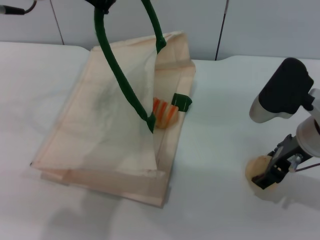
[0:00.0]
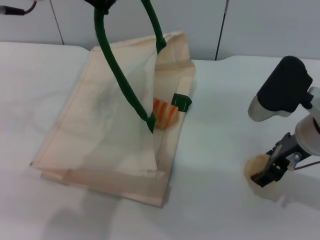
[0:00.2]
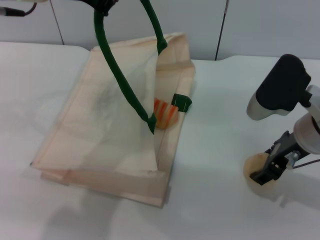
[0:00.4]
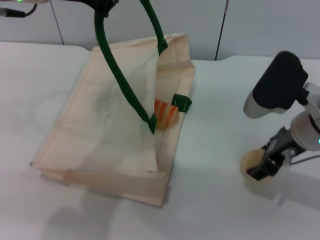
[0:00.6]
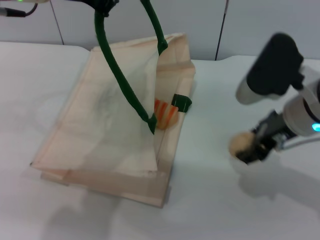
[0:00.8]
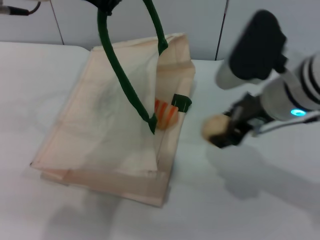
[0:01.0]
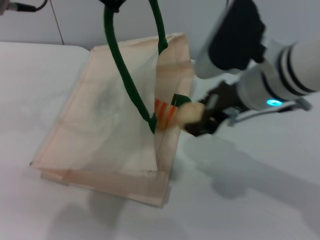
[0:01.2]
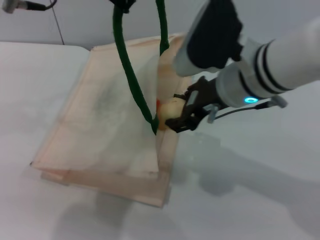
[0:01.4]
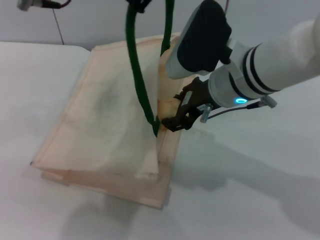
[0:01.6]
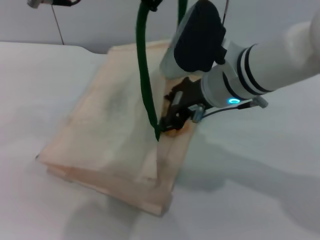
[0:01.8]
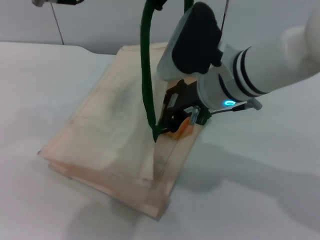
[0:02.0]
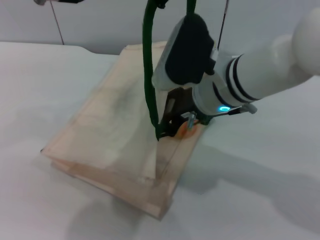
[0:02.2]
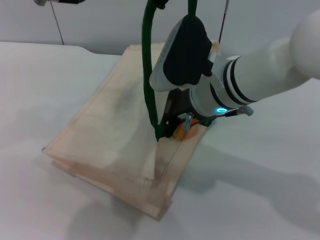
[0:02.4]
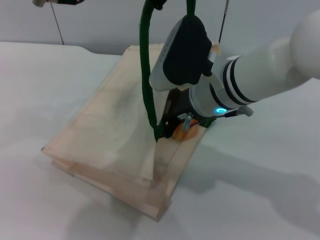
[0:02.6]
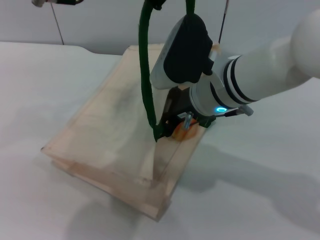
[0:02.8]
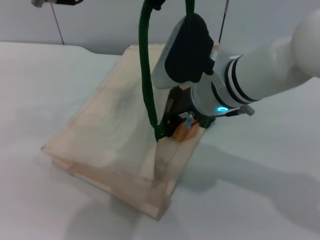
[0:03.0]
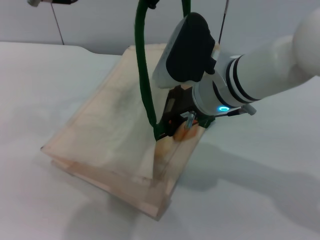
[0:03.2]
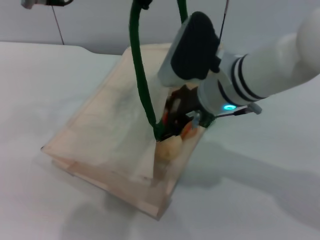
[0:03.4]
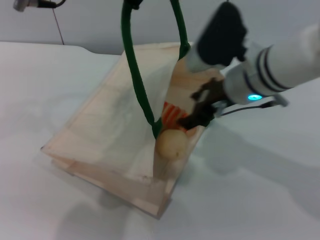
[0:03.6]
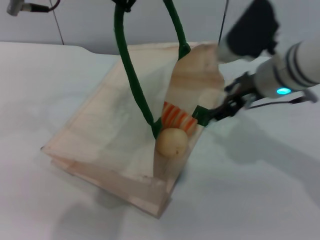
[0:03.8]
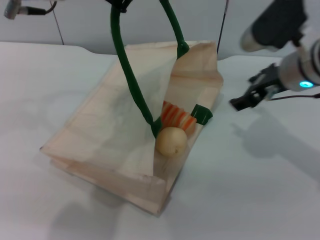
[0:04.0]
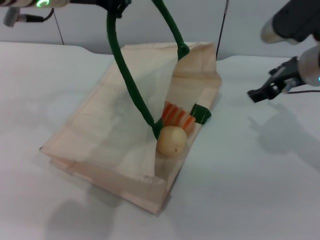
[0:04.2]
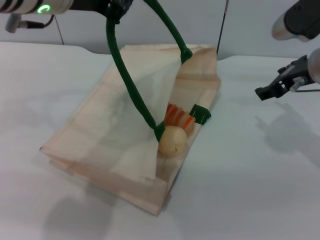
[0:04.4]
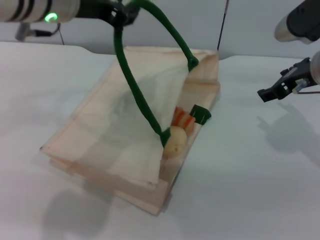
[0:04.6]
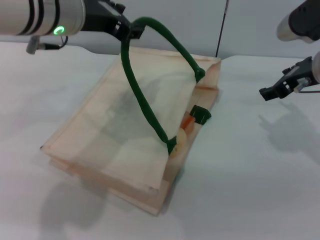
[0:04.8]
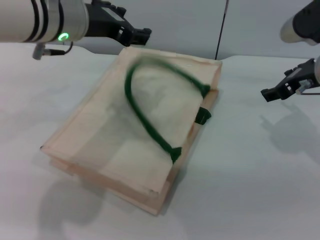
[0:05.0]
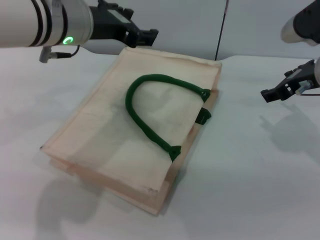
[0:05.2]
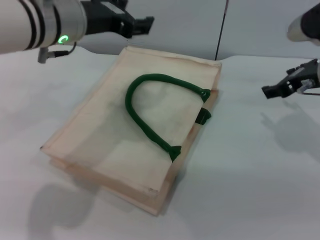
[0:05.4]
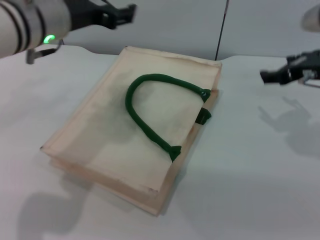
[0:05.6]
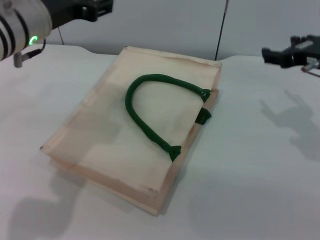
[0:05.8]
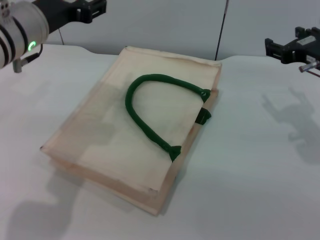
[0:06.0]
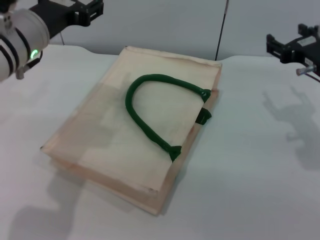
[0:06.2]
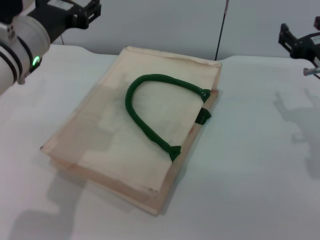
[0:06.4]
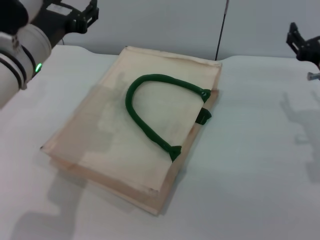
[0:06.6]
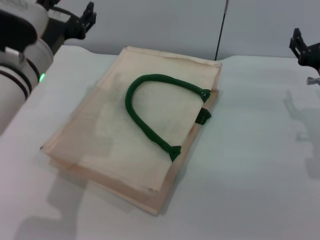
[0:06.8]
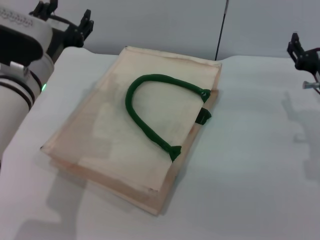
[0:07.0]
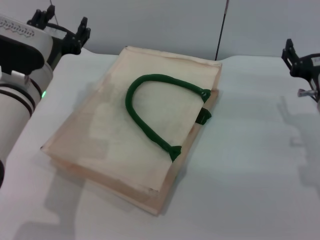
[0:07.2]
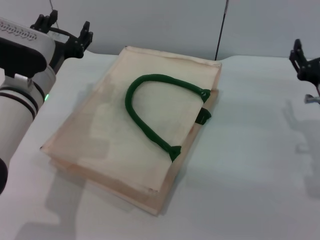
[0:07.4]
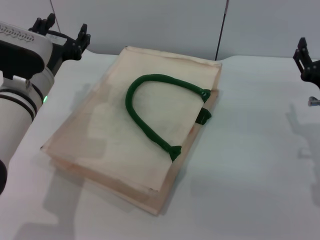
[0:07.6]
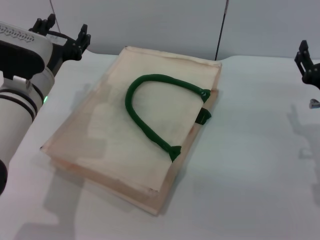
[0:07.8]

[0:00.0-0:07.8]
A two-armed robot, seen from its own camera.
Task of the whole recording: pick up the bread and egg yolk pastry from the table and place it in the white handbag.
Step, 0:01.0 to 0:03.8: Place the egg yolk pastry into the woven bag with the right gripper.
Step, 0:04.0 to 0:06.2: Lower the woven bag with the left gripper to close it.
0:00.0 to 0:01.6: The right gripper is displaced to the left by some 10 cm.
0:01.6 to 0:03.2: The grippers move only a little.
0:03.2 to 0:04.6: The left gripper travels downward by roughly 5 cm; the right gripper goes roughly 15 cm to the right.
0:04.6 to 0:06.2: The left gripper shifts about 10 cm downward, and opens up. The right gripper ends up about 5 cm from where it was.
0:06.2 to 0:07.8: The right gripper moves downward and backward, approximately 10 cm. Meanwhile the left gripper is displaced downward by about 5 cm.

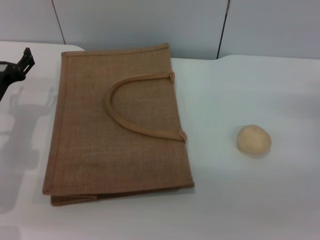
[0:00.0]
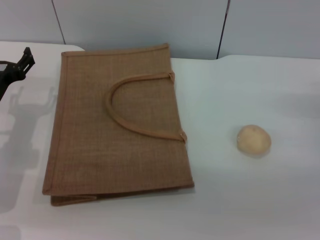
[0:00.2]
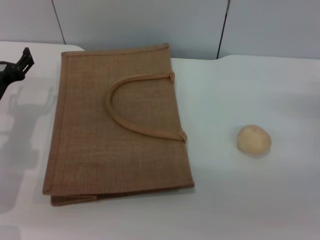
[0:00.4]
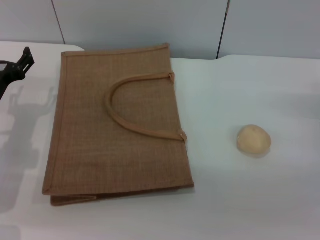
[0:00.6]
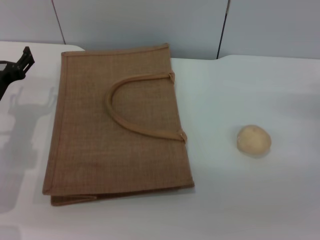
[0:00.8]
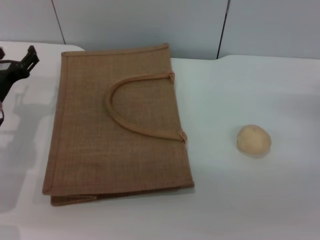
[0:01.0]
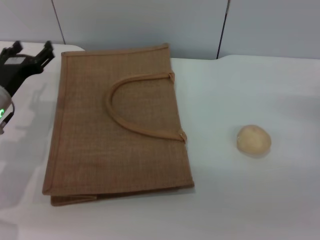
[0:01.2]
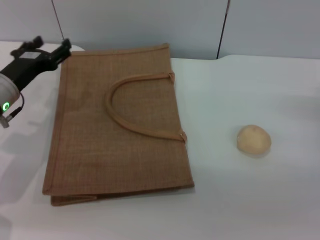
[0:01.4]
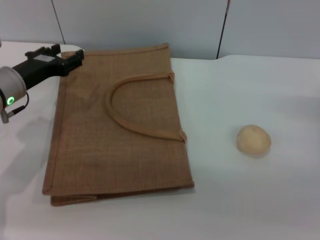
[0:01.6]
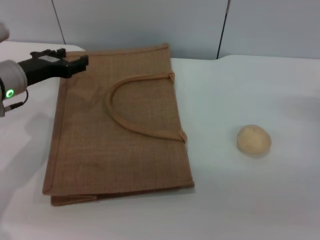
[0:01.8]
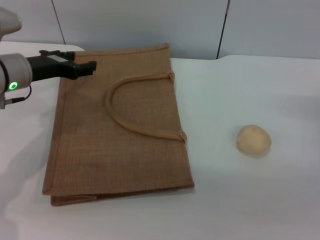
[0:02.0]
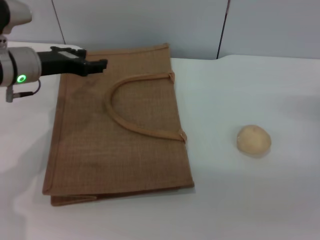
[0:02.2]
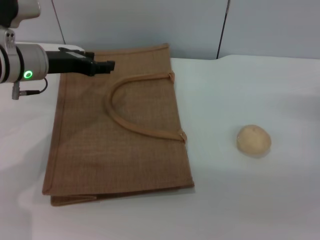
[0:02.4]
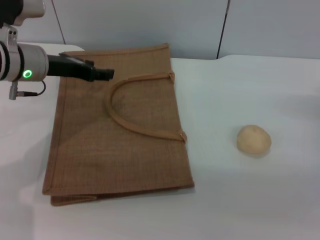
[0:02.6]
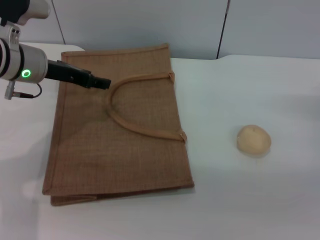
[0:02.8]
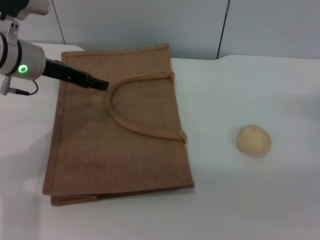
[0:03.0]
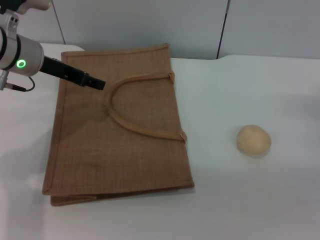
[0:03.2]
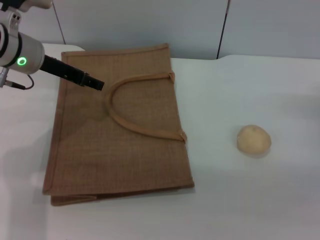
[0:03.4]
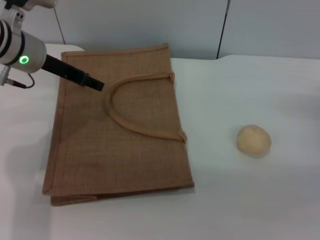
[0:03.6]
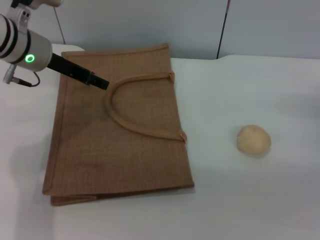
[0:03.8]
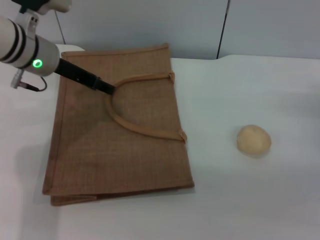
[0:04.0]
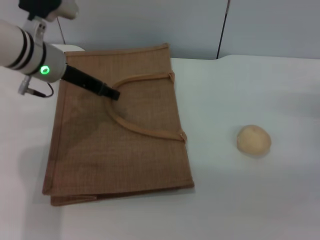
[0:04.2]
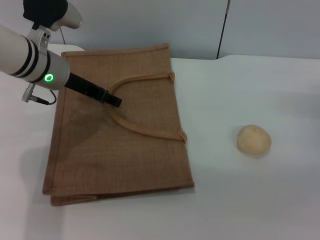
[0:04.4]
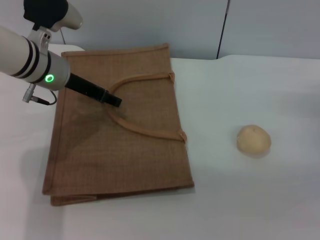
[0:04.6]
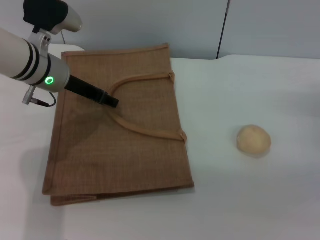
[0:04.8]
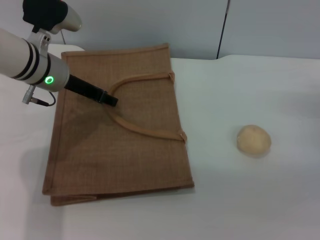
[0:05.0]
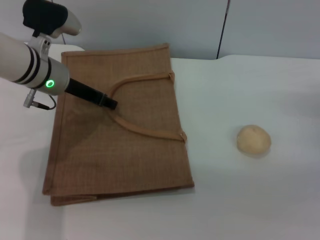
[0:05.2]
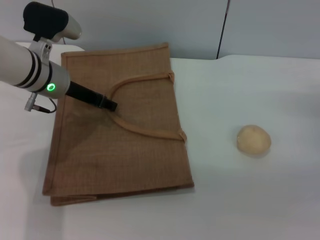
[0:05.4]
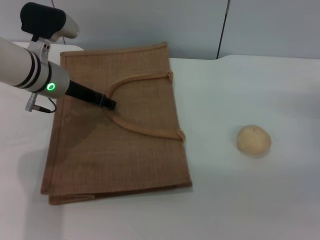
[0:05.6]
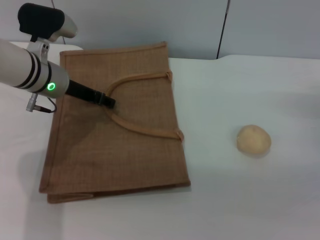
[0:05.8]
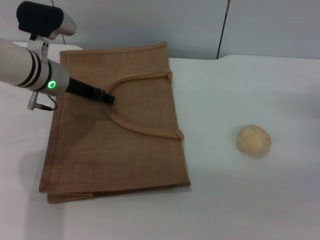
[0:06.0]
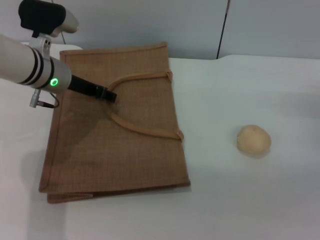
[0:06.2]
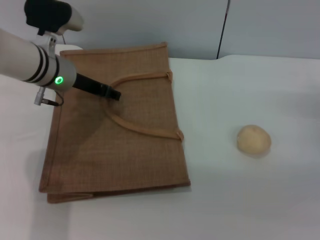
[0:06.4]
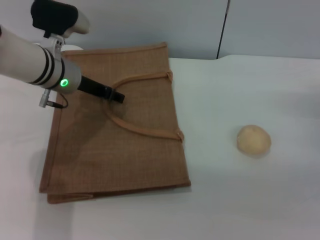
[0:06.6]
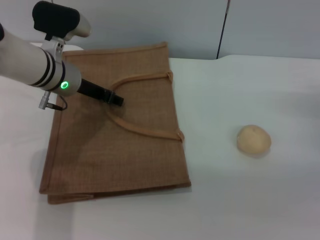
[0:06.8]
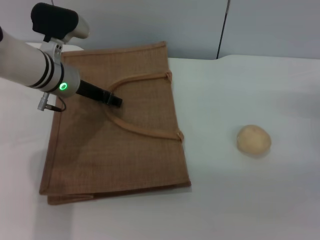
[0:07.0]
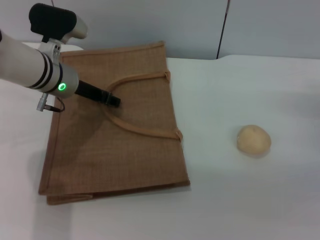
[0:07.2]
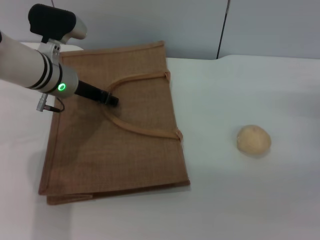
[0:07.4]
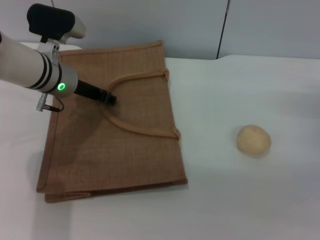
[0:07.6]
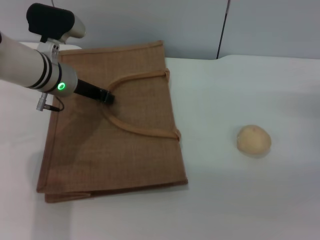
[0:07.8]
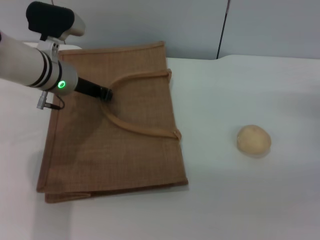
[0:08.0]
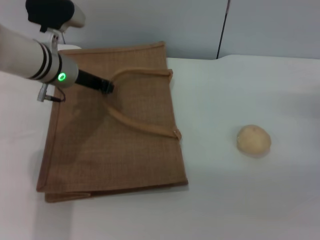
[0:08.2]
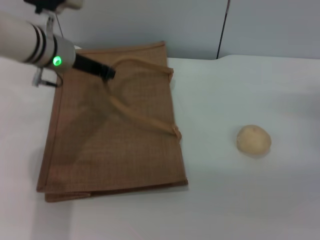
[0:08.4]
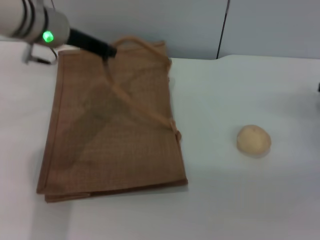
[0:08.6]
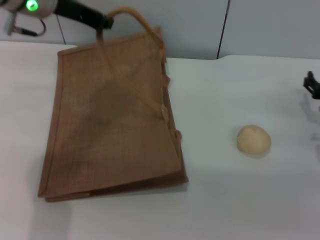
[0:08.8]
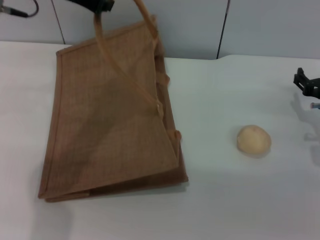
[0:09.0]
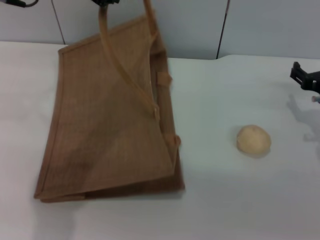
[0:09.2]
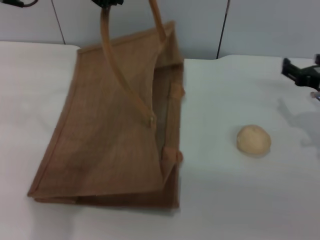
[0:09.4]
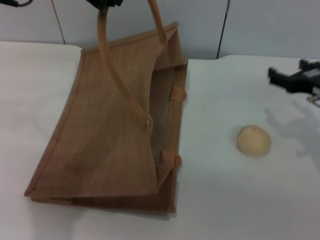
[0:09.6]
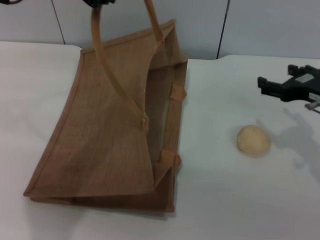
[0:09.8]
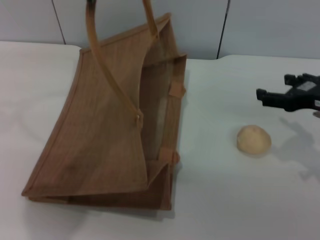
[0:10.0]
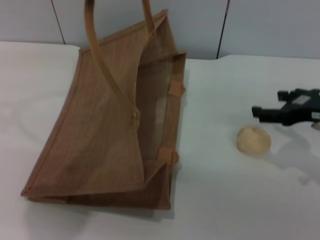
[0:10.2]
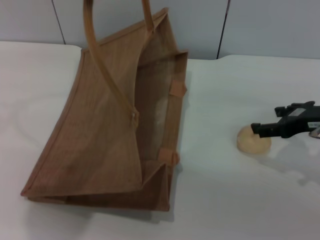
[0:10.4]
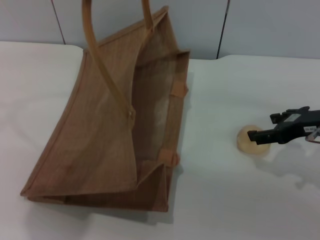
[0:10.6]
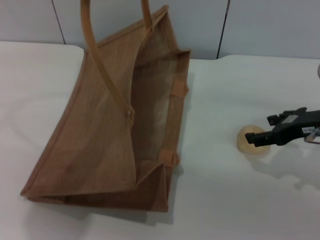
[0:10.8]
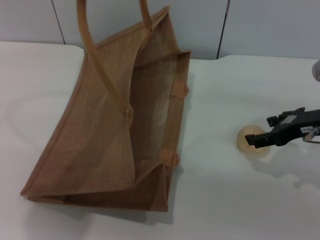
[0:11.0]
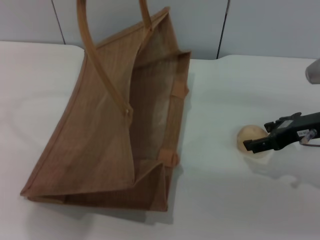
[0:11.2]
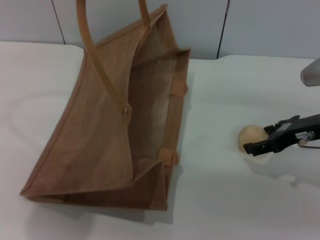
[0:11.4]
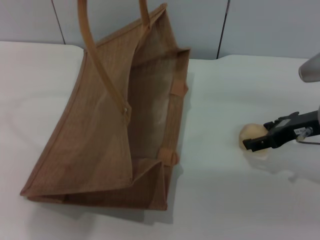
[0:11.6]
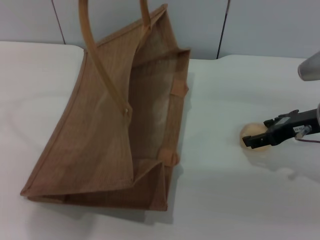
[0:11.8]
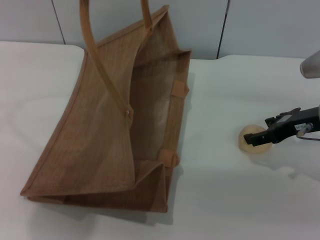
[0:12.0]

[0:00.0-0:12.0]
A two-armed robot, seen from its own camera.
Task of the whole recording: pick up the egg yolk pastry from the table and place it in the brown handbag.
Step, 0:00.0 to 0:08.6: Lift the woven bag with the left gripper to open it.
0:00.0 to 0:01.6: The left gripper moves approximately 5 cm.
0:01.6 to 0:03.0: The left gripper heads upward, covering roughly 5 cm.
0:03.0 to 0:06.0: The grippers stay close to where they were, moving slightly.
0:06.0 to 0:07.6: The grippers stay close to where they were, moving slightly.
0:07.6 to 0:09.0: The right gripper is displaced to the left by some 5 cm. Meanwhile the left gripper moves upward, some 20 cm, and closes.
0:09.0 to 0:10.4: The left gripper shifts some 10 cm backward and upward, while the right gripper is displaced upward by roughly 10 cm.
0:10.4 to 0:12.0: There are only small adjustments of the grippers.

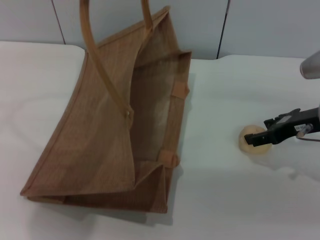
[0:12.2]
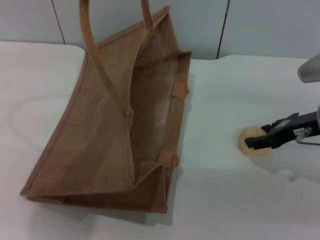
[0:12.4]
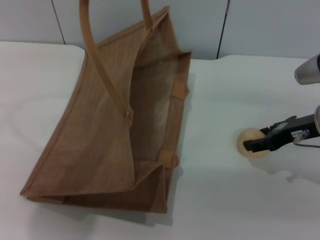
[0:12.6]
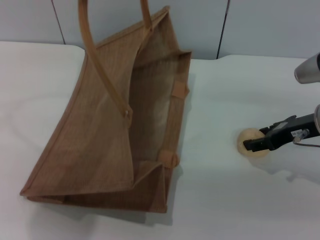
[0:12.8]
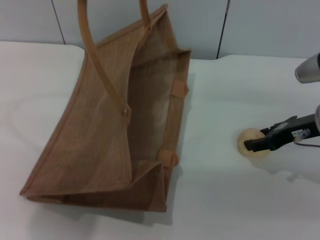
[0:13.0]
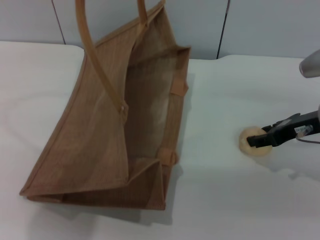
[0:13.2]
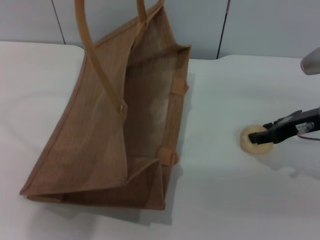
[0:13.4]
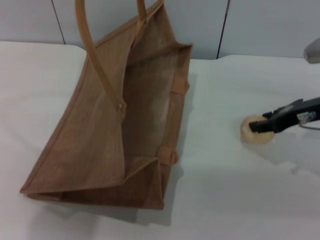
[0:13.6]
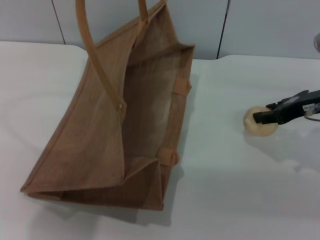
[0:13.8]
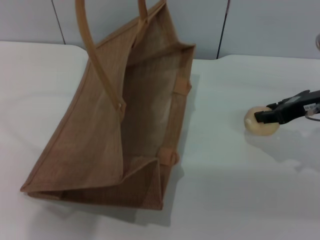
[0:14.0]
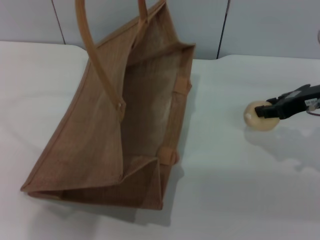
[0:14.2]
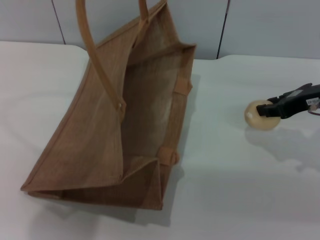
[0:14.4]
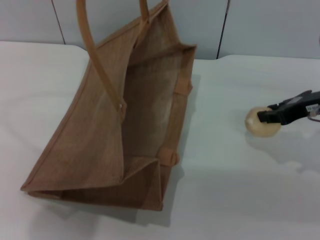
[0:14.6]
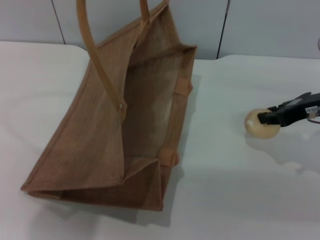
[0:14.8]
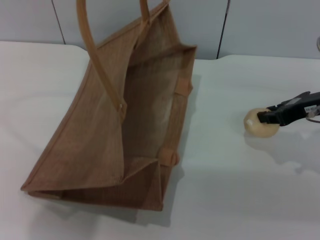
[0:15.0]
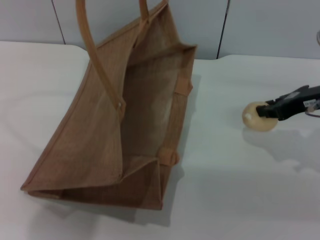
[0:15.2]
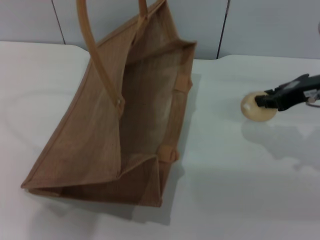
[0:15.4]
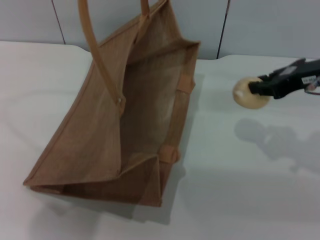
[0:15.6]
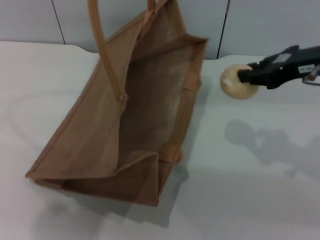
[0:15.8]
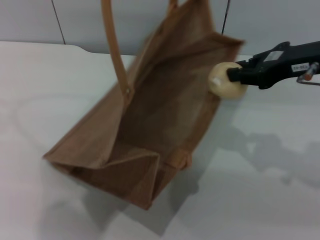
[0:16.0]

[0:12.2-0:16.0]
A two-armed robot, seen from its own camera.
Task of the whole recording: pick up the egg yolk pastry from the table and place it in the brown handbag.
Step, 0:12.2 to 0:15.4: Pick up the egg yolk pastry with the right gripper.
0:12.2 to 0:13.4: The right gripper closes.
0:13.4 to 0:14.8: The right gripper closes up.
0:14.8 to 0:16.0: The right gripper goes roughly 10 cm upward.
